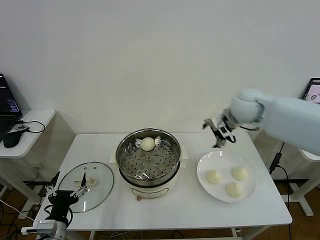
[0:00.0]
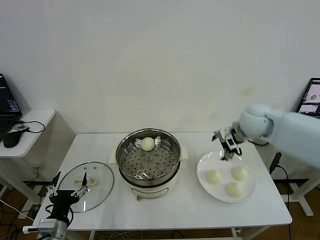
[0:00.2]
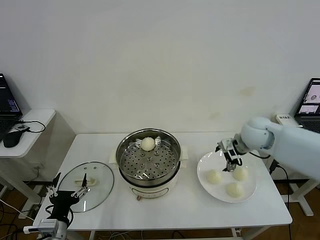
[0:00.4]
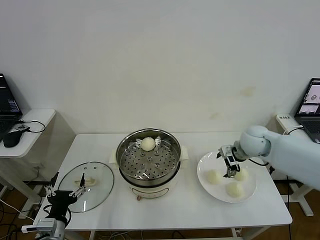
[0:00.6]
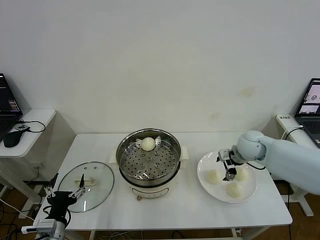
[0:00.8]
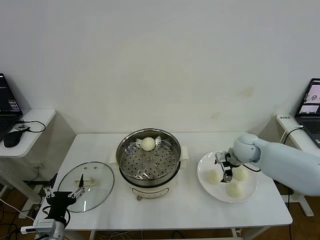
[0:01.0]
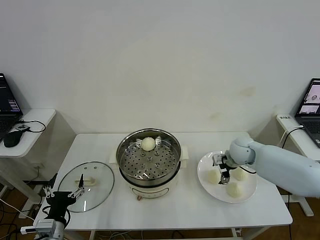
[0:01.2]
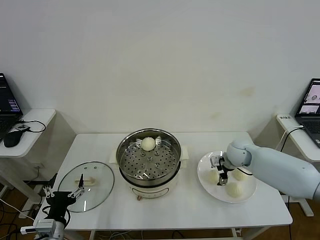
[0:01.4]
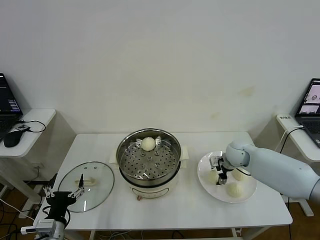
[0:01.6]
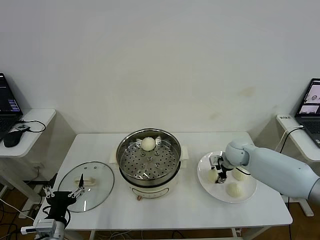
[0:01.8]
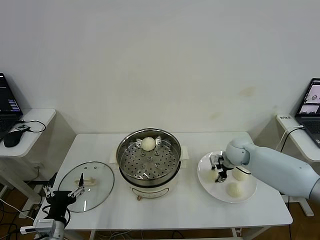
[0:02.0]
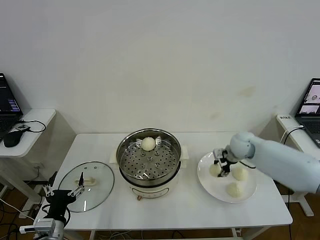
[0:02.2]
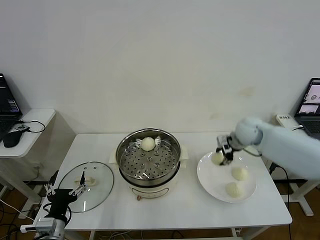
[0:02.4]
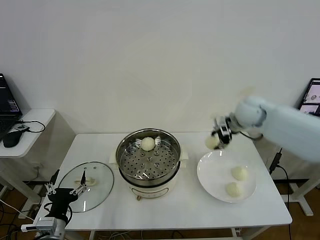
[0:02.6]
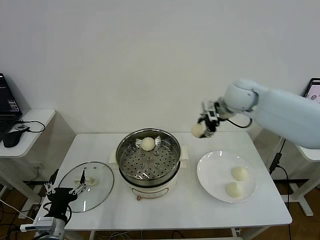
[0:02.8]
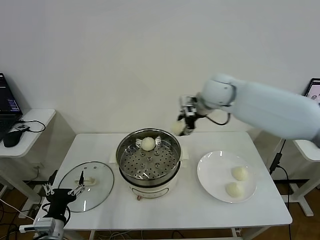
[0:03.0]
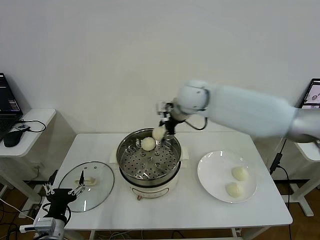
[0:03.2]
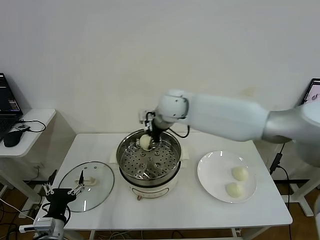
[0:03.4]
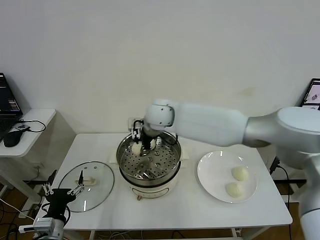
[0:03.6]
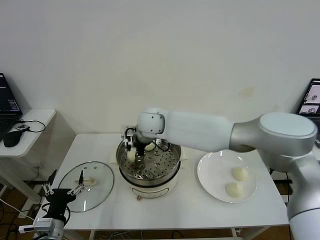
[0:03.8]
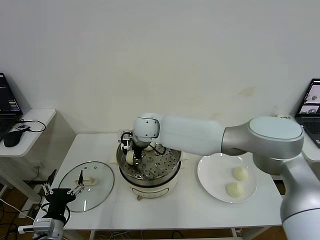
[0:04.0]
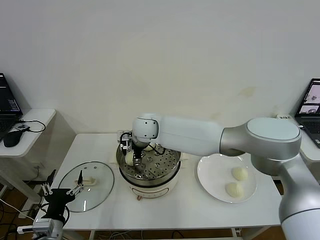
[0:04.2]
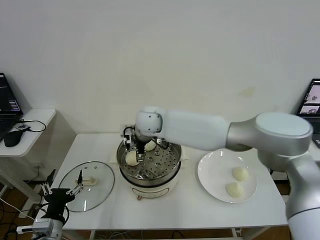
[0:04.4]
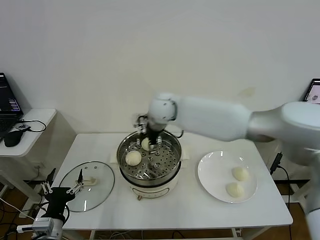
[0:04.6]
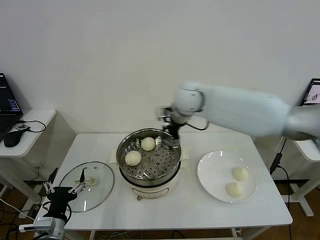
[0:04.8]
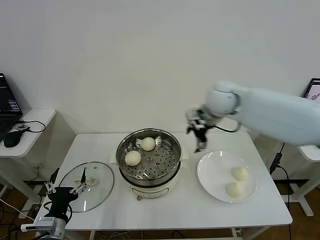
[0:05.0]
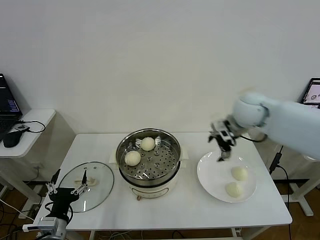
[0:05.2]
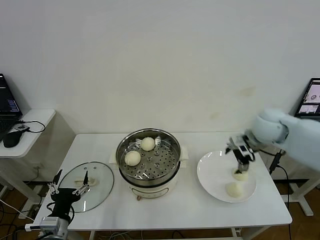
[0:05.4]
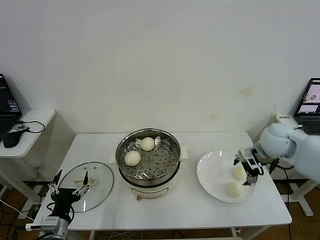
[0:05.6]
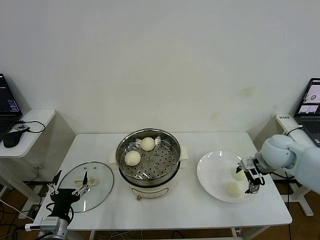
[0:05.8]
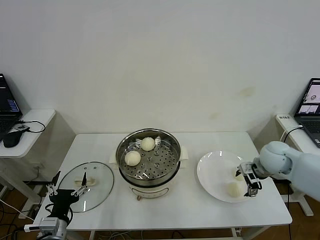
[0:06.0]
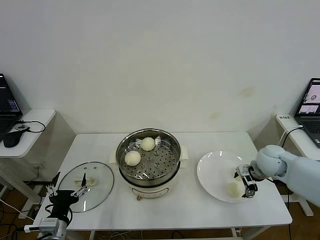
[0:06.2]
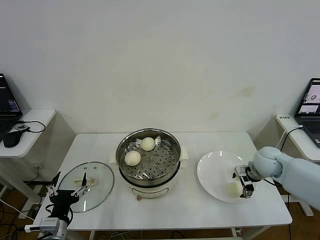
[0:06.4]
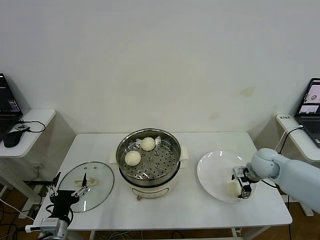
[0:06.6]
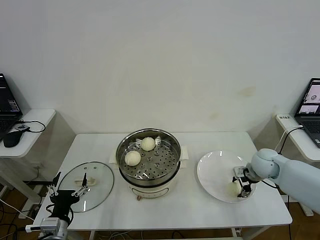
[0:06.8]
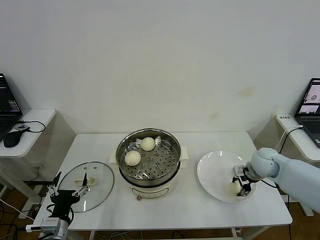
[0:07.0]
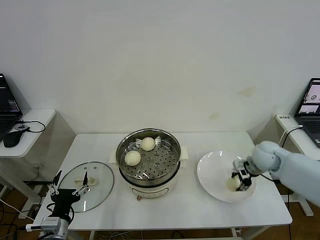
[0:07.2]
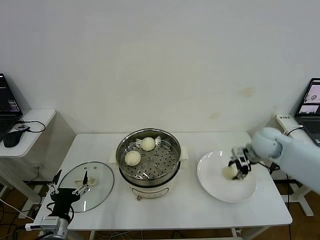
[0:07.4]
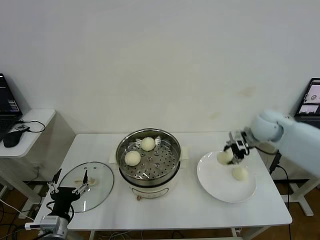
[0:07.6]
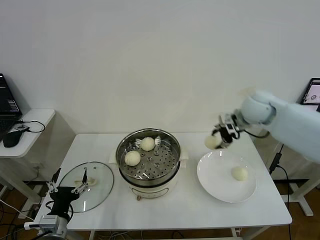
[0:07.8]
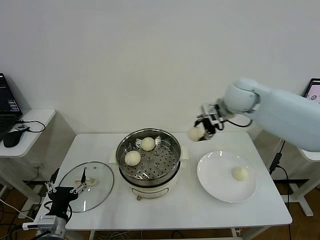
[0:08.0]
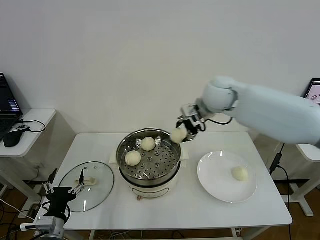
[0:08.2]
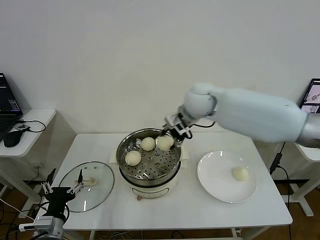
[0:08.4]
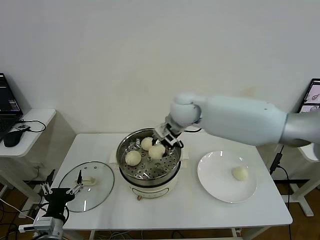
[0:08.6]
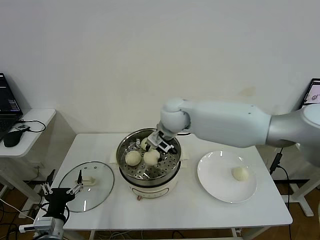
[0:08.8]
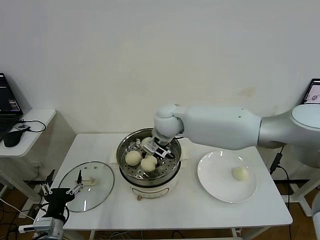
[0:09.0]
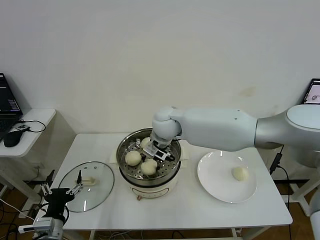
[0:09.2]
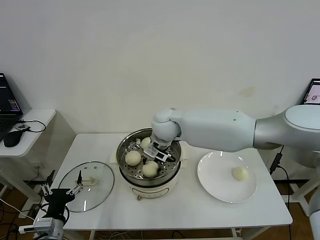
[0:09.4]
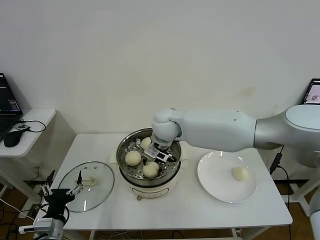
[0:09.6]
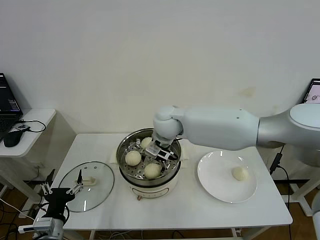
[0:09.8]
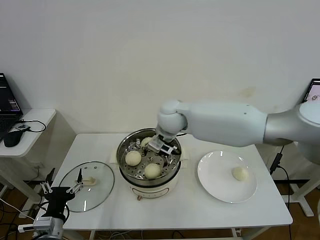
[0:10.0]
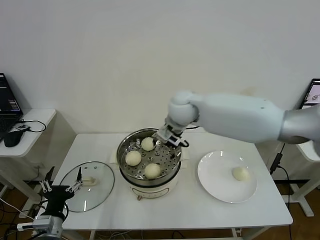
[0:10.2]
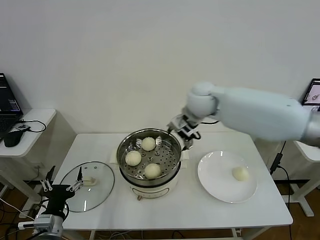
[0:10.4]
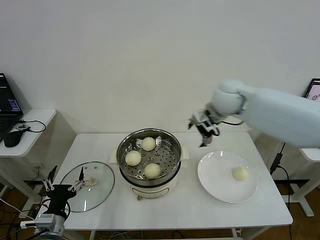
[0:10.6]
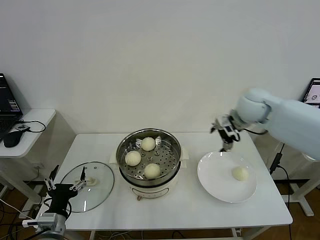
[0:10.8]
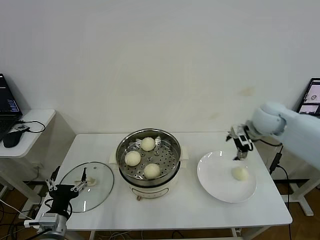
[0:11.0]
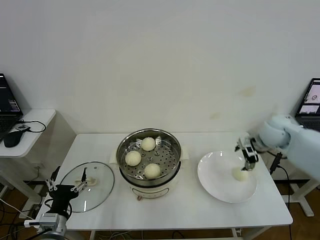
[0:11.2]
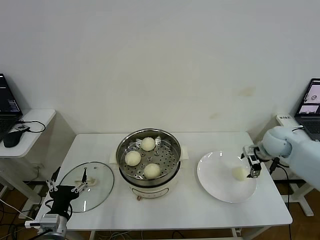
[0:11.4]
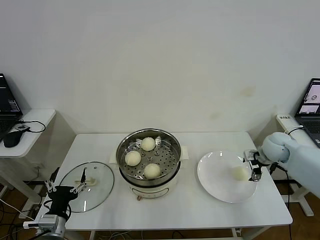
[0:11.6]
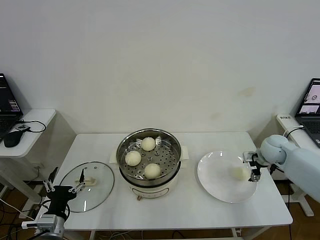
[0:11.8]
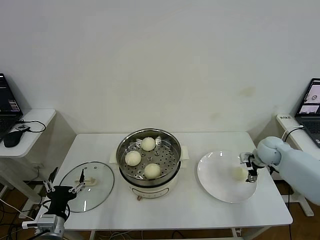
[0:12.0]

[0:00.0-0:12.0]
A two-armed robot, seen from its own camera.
Step, 0:00.0 to 0:01.8: Grasp the baozi in the plate with right gripper.
Step, 0:02.2 to 0:04.2: Place the baozi on the steamer with right gripper.
Step, 0:04.4 to 0:07.0: Grasp the baozi in the plate with right gripper.
Step, 0:07.2 to 0:09.8: Place the baozi on the steamer with right gripper.
0:00.0 to 0:01.6: The right gripper shifts some 20 cm downward, and closes its fingers.
0:01.6 to 0:03.0: The right gripper goes approximately 30 cm upward and to the left, and closes up.
0:03.0 to 0:04.4: The right gripper is displaced to the left and downward by some 15 cm, and opens its fingers.
0:04.4 to 0:06.0: The right gripper goes about 40 cm to the right.
0:06.0 to 0:07.6: The right gripper is displaced upward and forward by approximately 15 cm, and closes its fingers.
0:07.6 to 0:09.0: The right gripper heads to the left, covering roughly 30 cm.
0:09.0 to 0:10.4: The right gripper moves to the right and upward, about 15 cm, and opens its fingers.
0:10.4 to 0:12.0: The right gripper moves to the right and downward, approximately 35 cm.

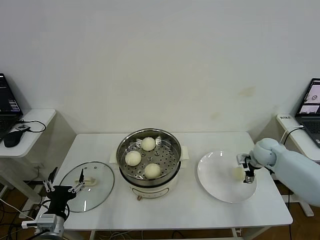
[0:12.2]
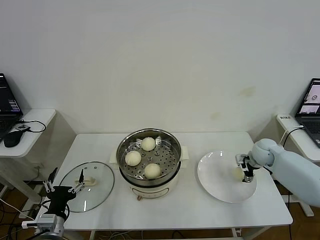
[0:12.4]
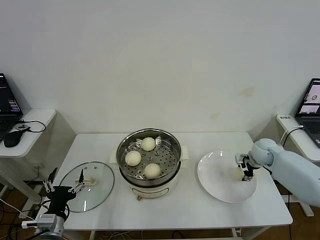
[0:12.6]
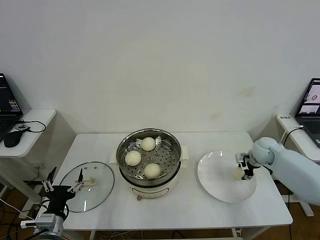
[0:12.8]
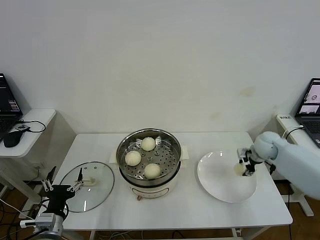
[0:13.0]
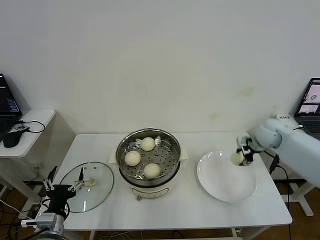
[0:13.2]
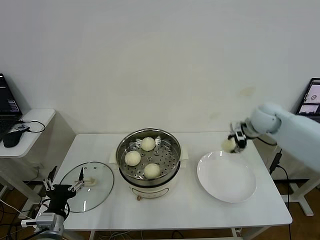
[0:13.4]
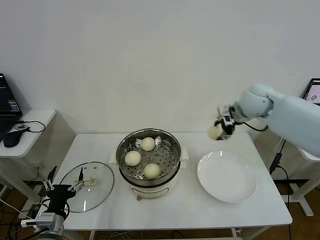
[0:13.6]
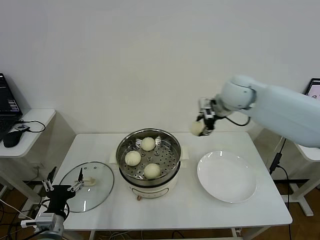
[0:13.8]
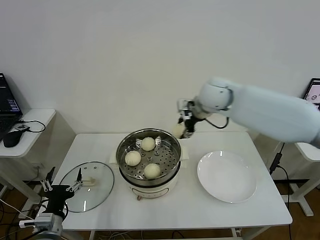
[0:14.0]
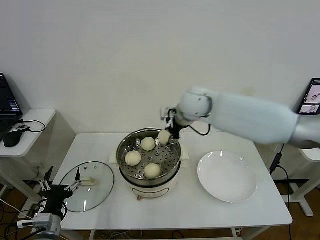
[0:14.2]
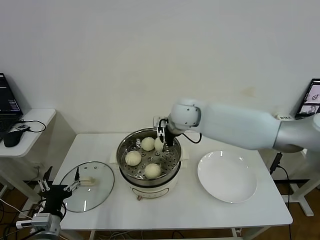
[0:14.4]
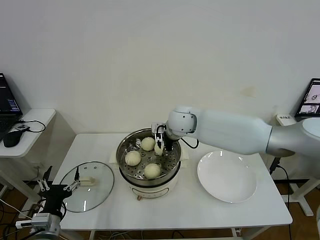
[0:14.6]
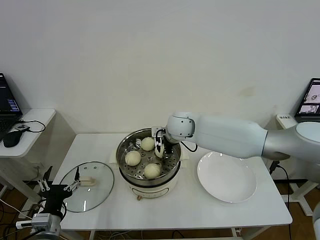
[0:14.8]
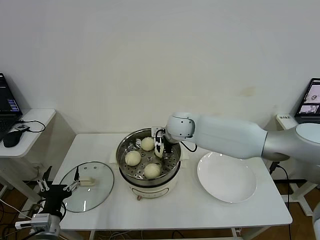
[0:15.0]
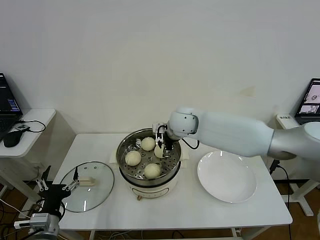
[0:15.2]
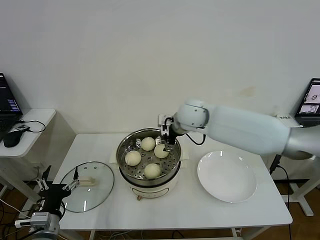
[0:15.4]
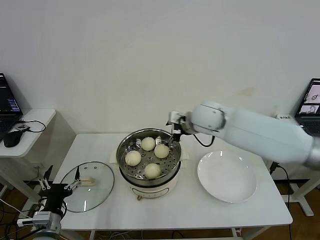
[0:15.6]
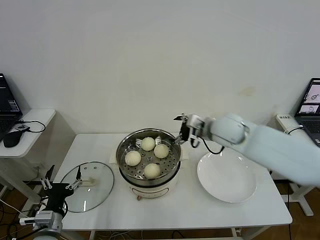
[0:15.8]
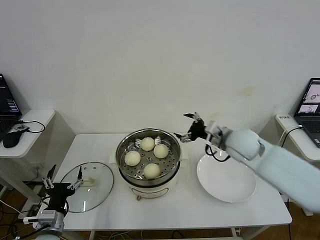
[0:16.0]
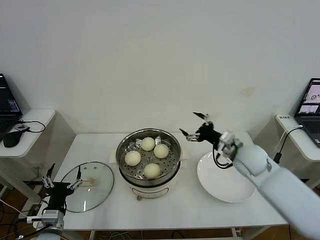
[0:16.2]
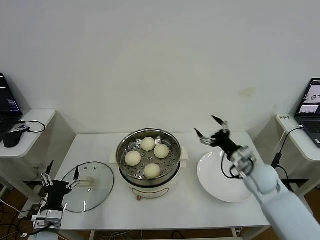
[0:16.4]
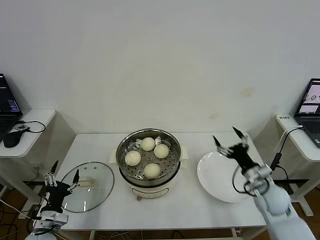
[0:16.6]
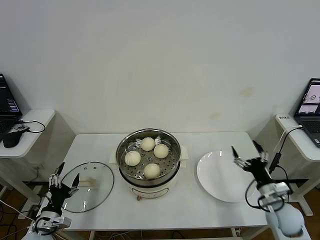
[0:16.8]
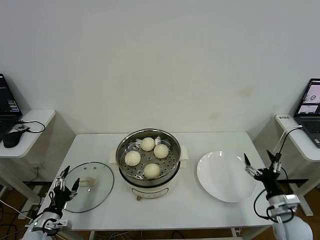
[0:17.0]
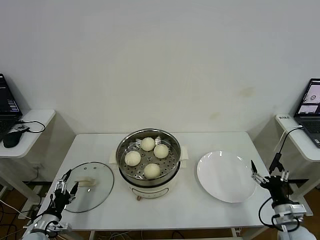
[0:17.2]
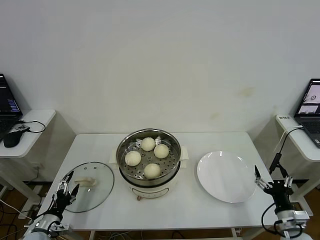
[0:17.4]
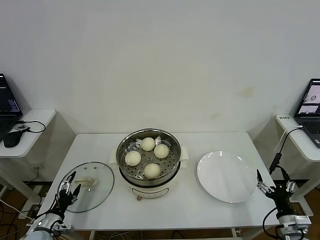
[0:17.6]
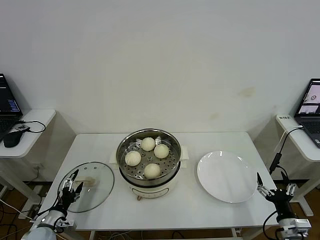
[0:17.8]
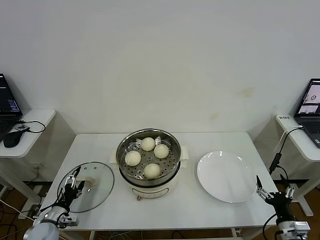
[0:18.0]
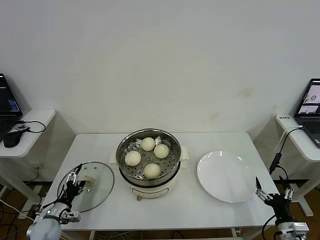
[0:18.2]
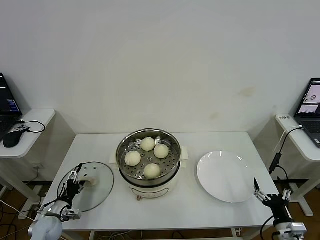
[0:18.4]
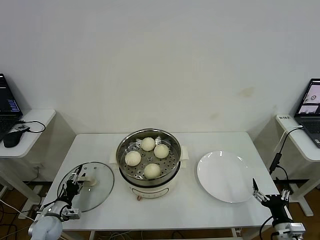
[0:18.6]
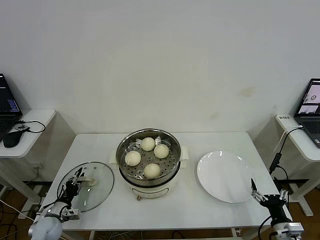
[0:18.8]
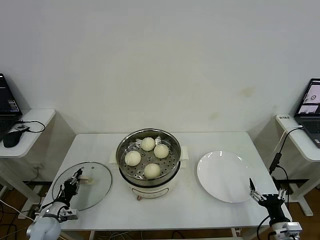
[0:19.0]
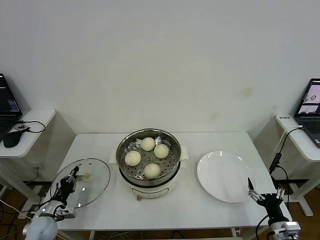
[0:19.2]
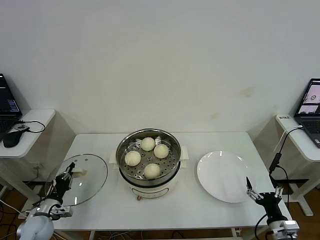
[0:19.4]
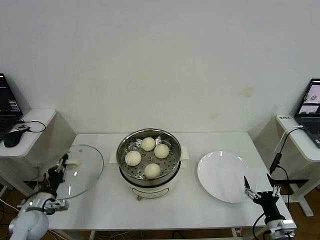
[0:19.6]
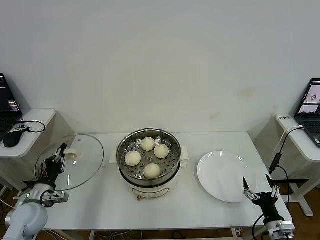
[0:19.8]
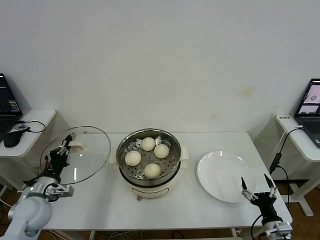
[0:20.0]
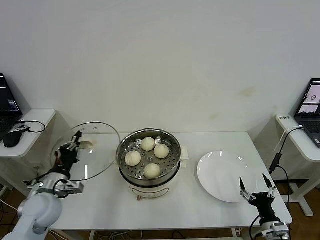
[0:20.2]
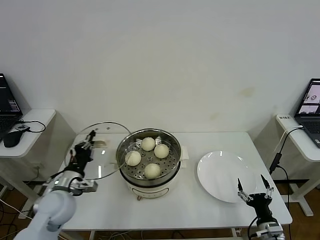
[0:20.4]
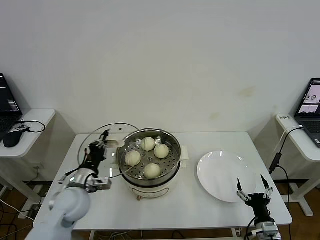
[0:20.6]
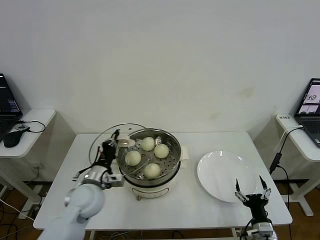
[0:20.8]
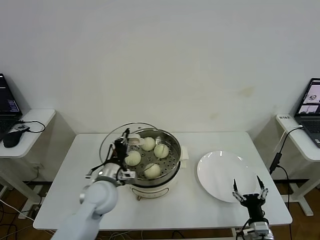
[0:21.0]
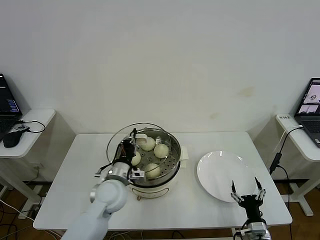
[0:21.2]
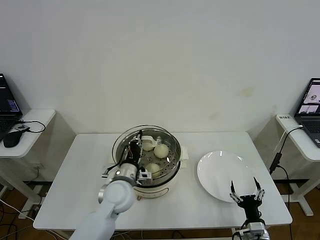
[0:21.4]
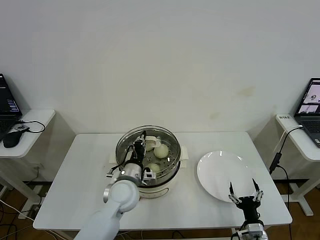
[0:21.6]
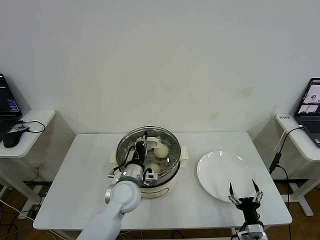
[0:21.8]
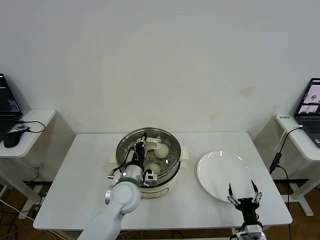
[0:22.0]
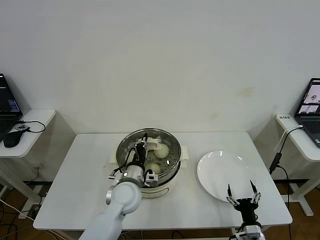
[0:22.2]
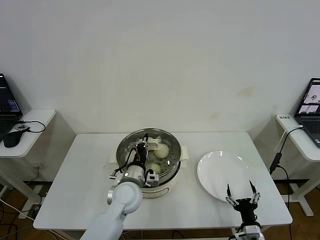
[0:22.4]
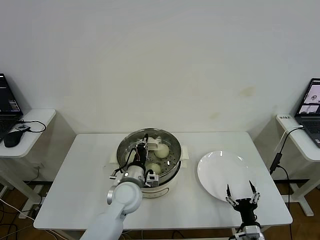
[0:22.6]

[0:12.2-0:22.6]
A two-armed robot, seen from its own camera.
Step, 0:12.8 to 0:15.0: Place the baozi on the steamer with right gripper.
Step, 0:15.4 to 0:19.2: Grasp the pot lid with left gripper.
0:12.2 to 0:13.6: The right gripper goes roughly 25 cm upward and to the left, and closes its fingers.
0:13.6 to 0:15.2: The right gripper heads to the left, covering about 20 cm, and opens its fingers.
0:15.2 to 0:16.6: The right gripper is displaced to the right, backward and downward by approximately 40 cm. The left gripper heads downward, covering roughly 5 cm.
0:16.6 to 0:18.2: The right gripper heads backward, downward and to the right, covering approximately 20 cm. The left gripper travels downward and forward by approximately 10 cm.
0:18.2 to 0:19.6: The left gripper heads upward, covering some 5 cm, and closes its fingers.
0:19.6 to 0:21.2: The right gripper is displaced to the left by roughly 5 cm; the left gripper goes about 25 cm to the right.
0:21.2 to 0:22.6: The left gripper moves some 5 cm.
